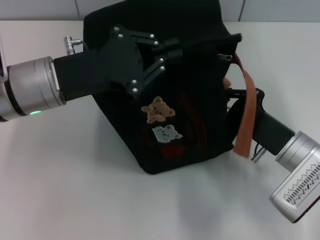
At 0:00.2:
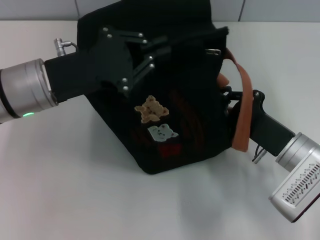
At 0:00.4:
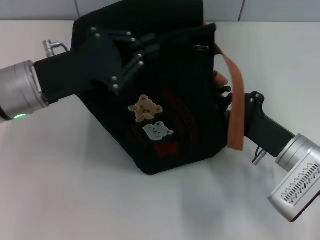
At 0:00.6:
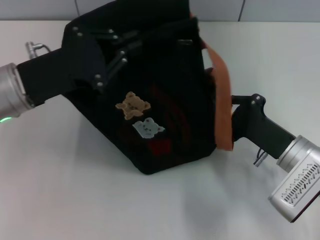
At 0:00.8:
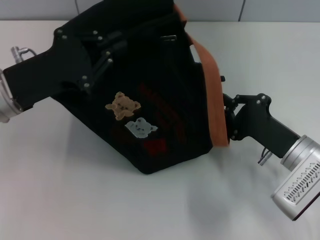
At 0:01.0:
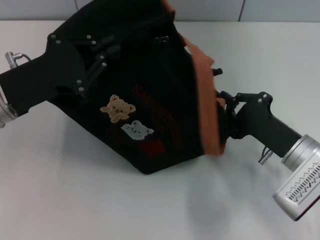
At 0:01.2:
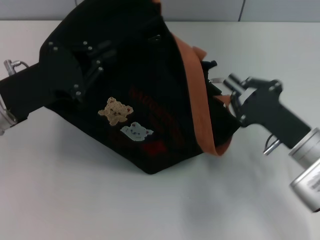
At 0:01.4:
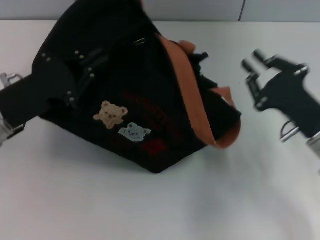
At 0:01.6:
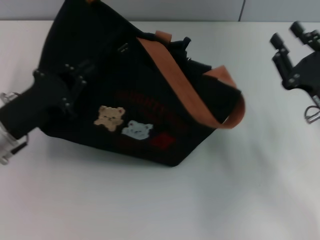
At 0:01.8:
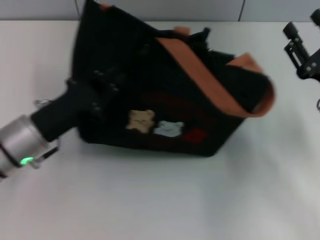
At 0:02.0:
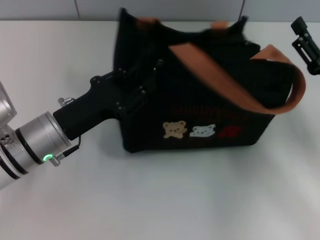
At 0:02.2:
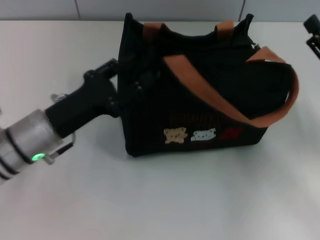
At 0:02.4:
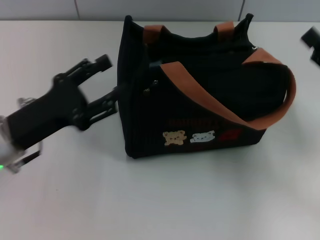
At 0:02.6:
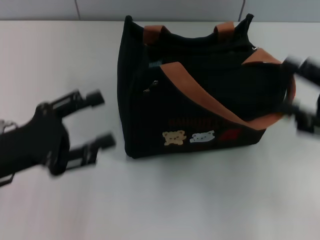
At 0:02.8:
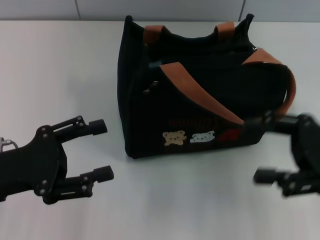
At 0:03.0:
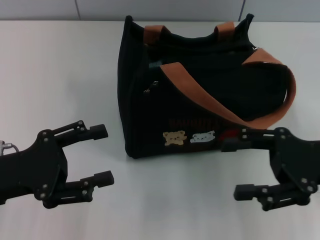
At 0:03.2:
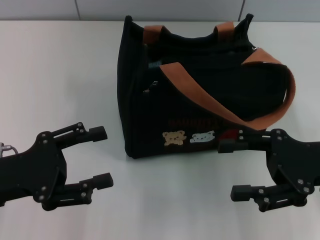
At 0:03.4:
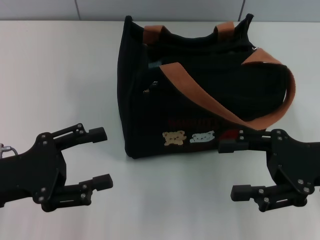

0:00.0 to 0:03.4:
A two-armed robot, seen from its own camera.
Step, 0:01.4 to 0:02.2: Grab the bag with your left hand.
0:00.0 to 0:01.6: The left gripper travels downward and to the left by some 10 cm; the right gripper heads to the right, covering roughly 5 cm, and opens.
0:01.6 to 0:03.4: The right gripper goes approximately 5 cm upward, and opens up. Meanwhile the left gripper is displaced backward by roughly 5 cm, moves about 5 cm to the right and comes back, and opens.

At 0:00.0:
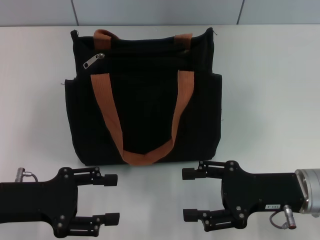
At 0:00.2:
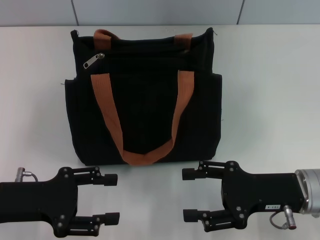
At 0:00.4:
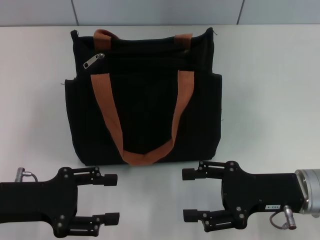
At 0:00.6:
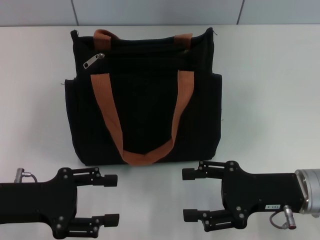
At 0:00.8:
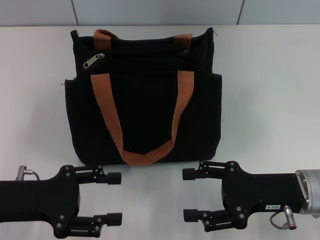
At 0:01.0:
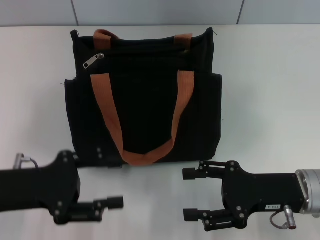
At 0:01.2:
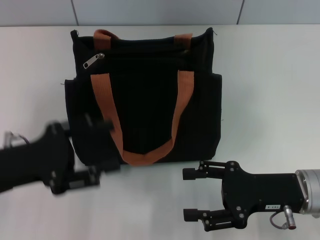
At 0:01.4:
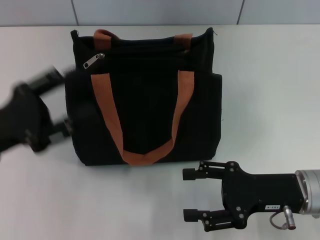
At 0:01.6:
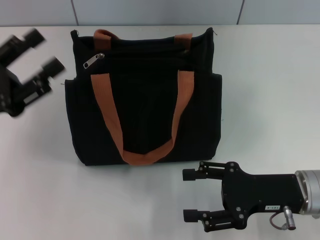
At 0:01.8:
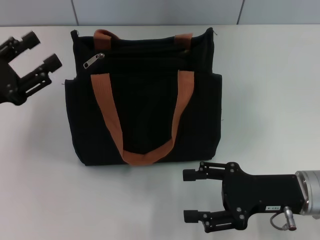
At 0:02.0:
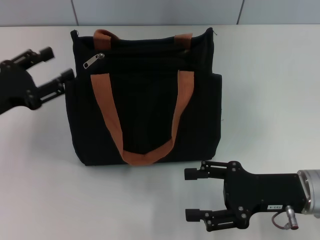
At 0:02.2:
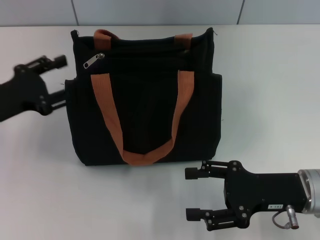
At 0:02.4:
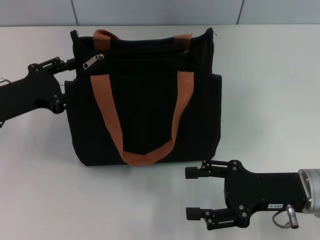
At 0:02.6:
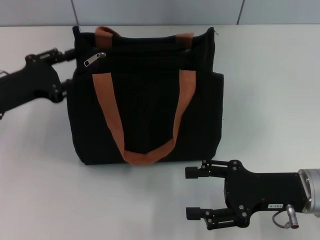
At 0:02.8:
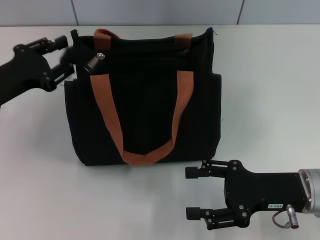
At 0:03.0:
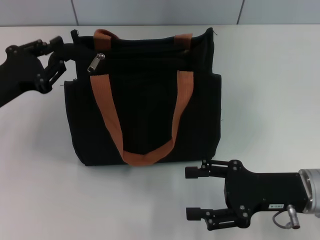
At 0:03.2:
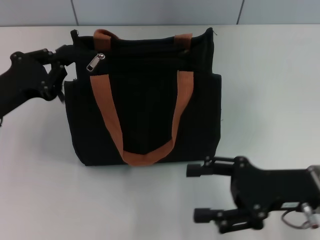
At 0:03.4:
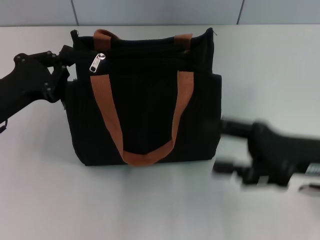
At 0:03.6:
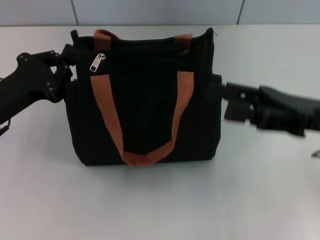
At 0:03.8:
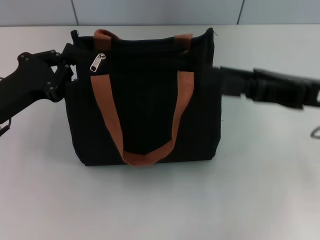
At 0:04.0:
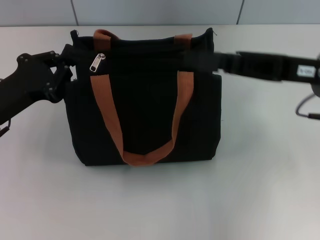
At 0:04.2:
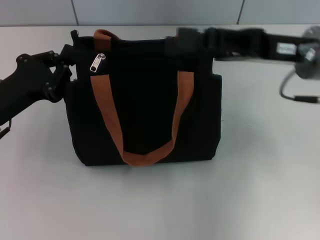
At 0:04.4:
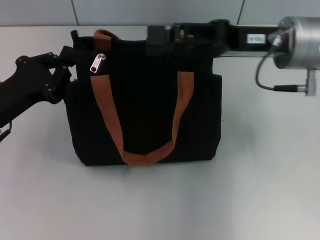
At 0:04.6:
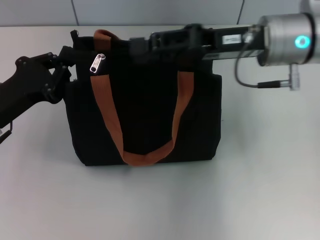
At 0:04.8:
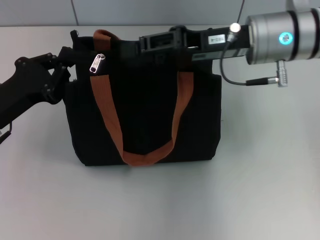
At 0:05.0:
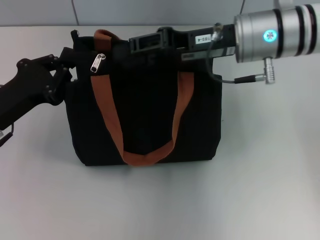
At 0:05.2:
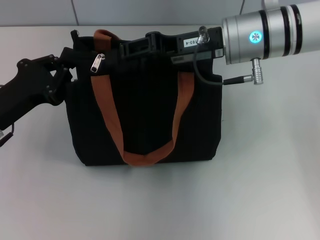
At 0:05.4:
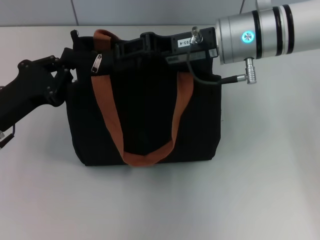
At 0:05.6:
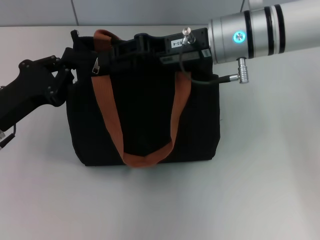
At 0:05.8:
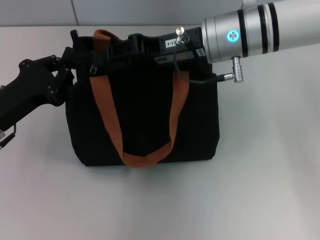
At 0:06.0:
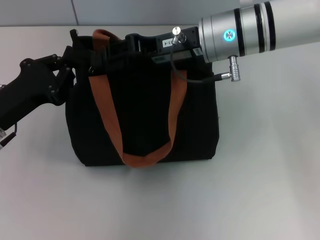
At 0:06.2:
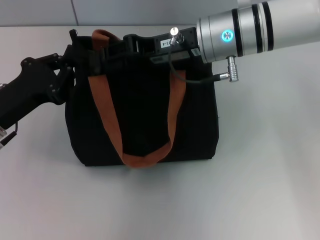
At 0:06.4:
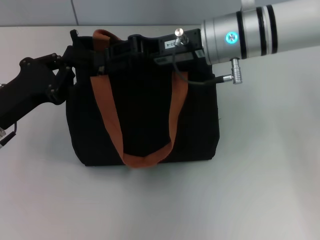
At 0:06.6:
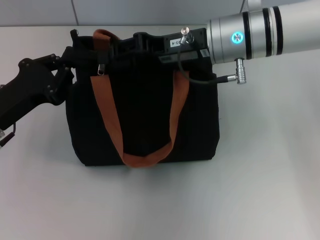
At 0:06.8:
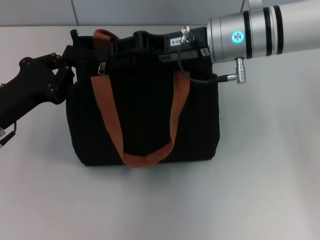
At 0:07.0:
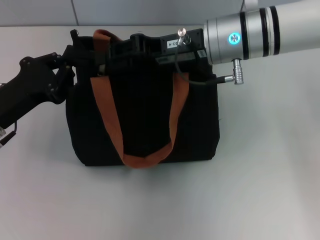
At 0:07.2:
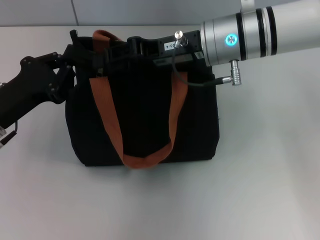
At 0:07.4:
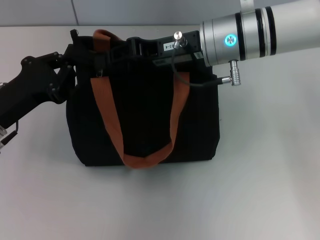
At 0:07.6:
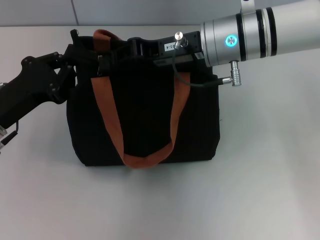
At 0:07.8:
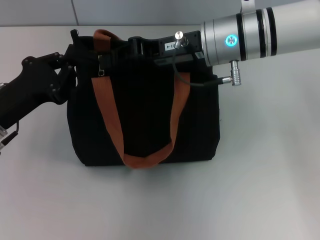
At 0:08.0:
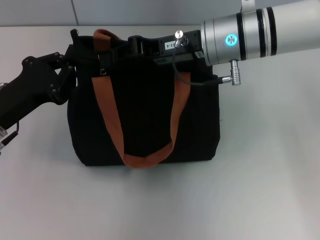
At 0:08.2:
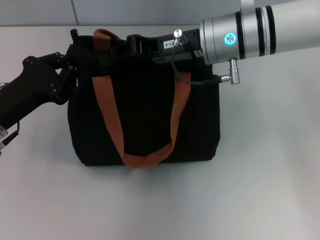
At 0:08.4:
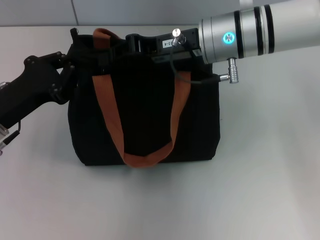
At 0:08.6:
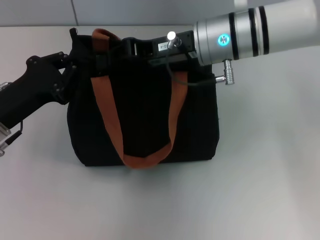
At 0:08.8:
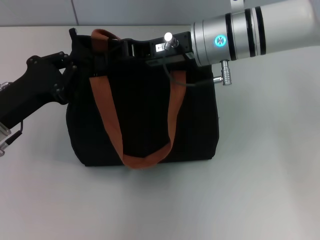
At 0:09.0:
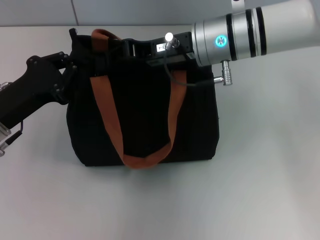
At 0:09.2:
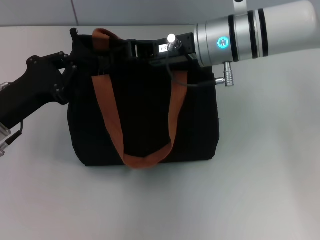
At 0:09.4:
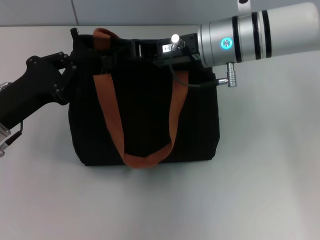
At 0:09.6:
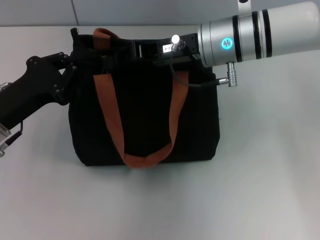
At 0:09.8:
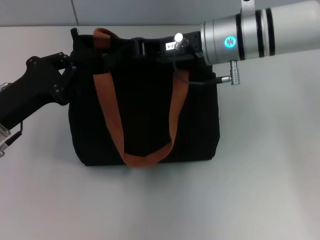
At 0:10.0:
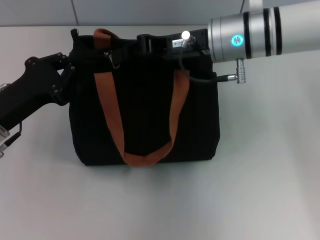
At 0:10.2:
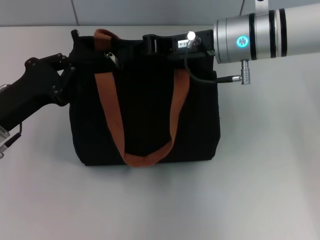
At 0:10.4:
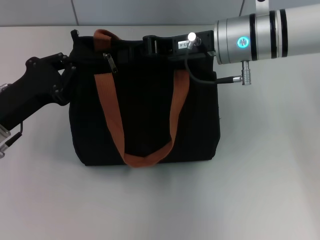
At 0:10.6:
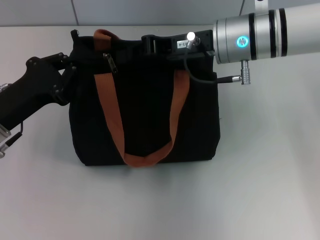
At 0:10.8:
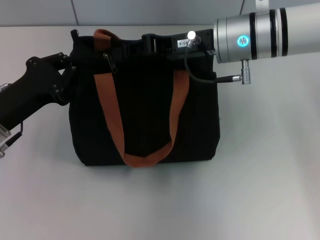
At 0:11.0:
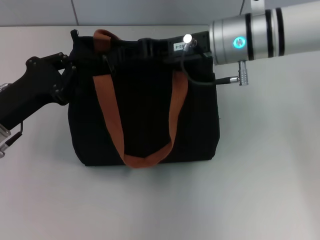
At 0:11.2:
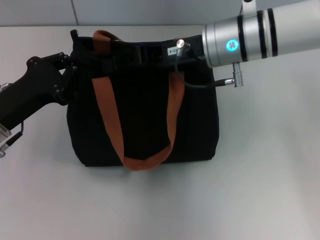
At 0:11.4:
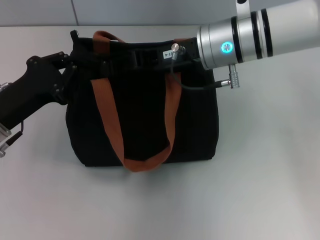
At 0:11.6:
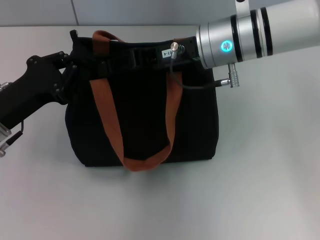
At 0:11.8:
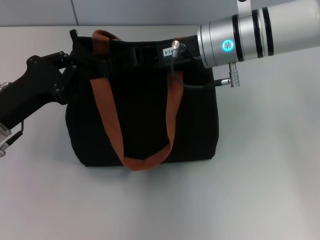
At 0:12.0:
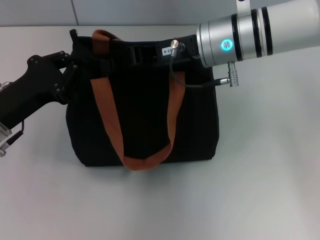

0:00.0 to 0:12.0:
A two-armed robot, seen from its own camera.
0:00.0 to 0:01.6: The left gripper shifts by some 5 cm.
0:01.6 to 0:03.0: The left gripper moves forward, some 5 cm.
0:03.0 to 0:04.4: The right gripper shifts approximately 20 cm upward and forward, while the left gripper closes its fingers.
0:04.4 to 0:06.0: The right gripper travels to the left by approximately 10 cm, and closes its fingers.
0:06.0 to 0:09.0: Both grippers stay put.
0:09.0 to 0:12.0: The grippers move only a little.

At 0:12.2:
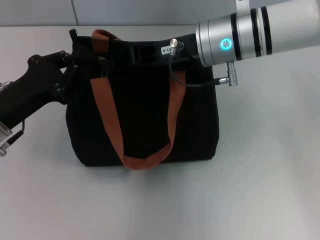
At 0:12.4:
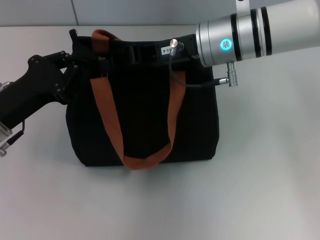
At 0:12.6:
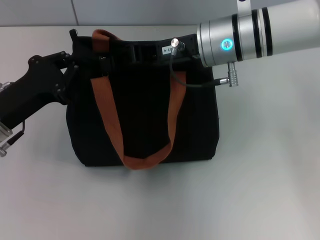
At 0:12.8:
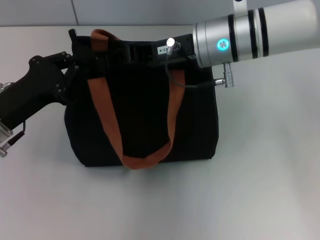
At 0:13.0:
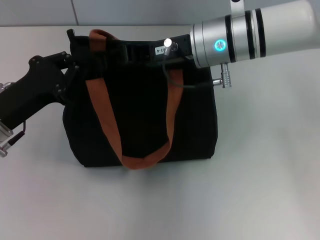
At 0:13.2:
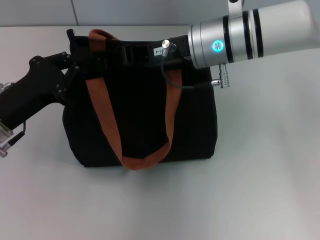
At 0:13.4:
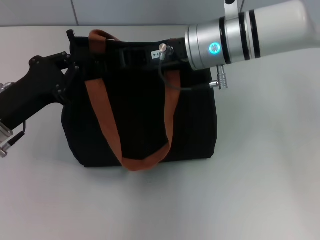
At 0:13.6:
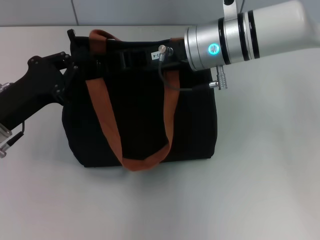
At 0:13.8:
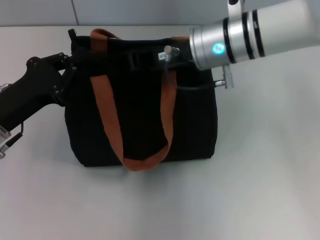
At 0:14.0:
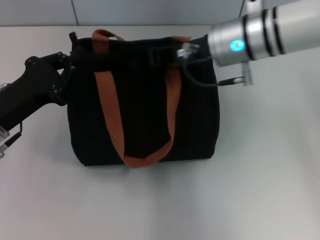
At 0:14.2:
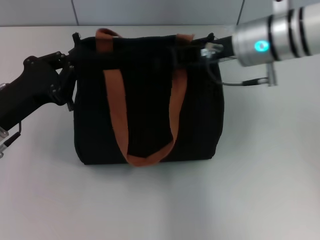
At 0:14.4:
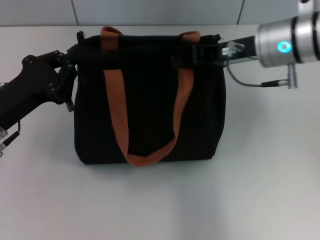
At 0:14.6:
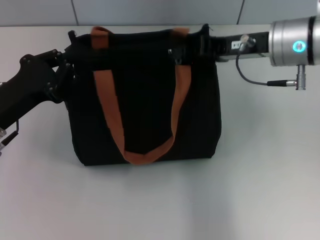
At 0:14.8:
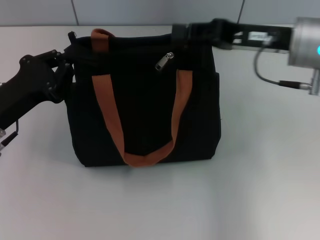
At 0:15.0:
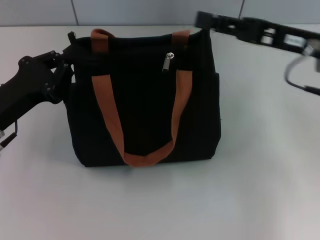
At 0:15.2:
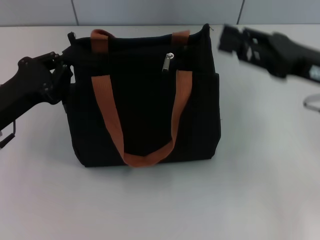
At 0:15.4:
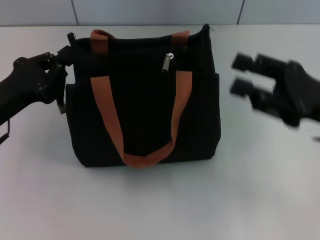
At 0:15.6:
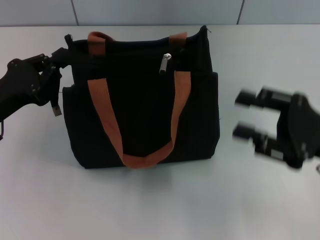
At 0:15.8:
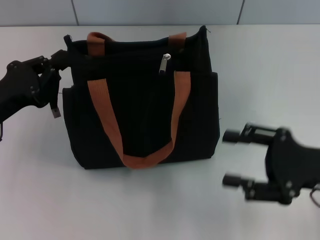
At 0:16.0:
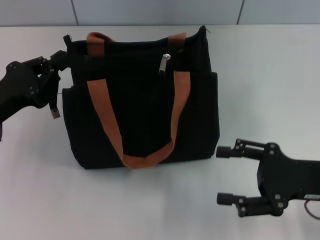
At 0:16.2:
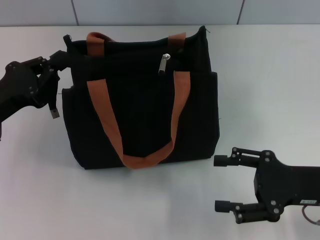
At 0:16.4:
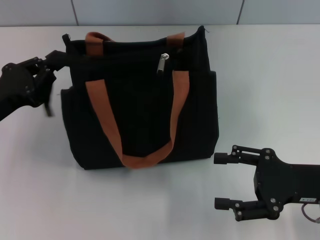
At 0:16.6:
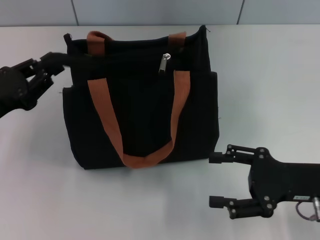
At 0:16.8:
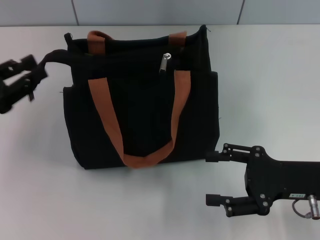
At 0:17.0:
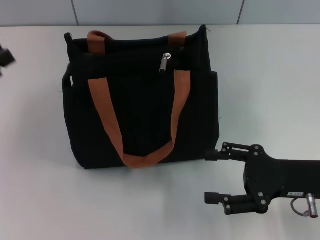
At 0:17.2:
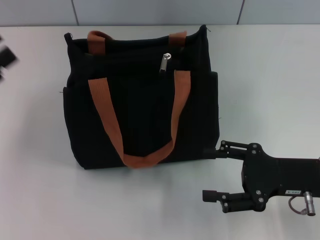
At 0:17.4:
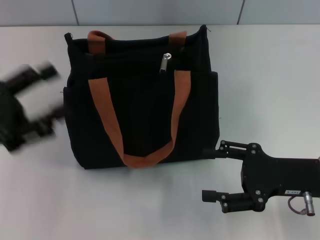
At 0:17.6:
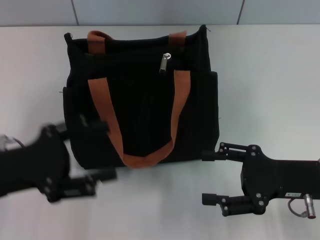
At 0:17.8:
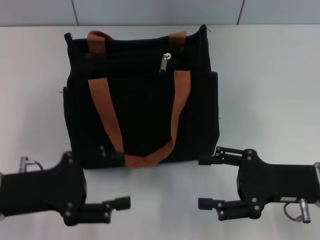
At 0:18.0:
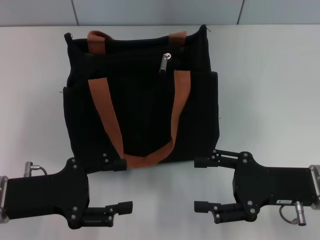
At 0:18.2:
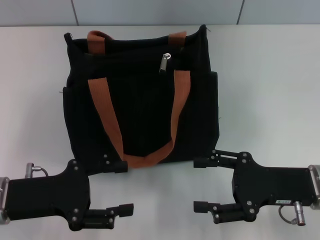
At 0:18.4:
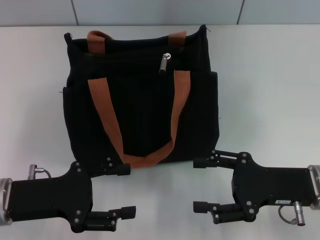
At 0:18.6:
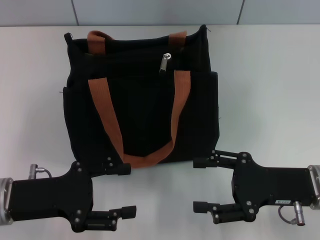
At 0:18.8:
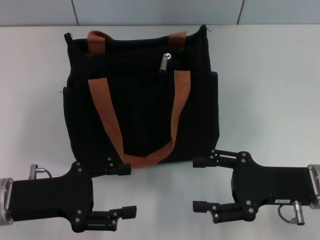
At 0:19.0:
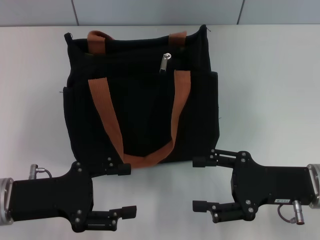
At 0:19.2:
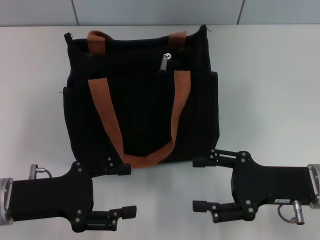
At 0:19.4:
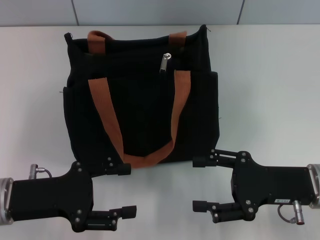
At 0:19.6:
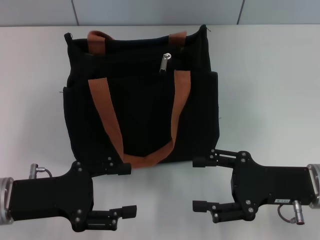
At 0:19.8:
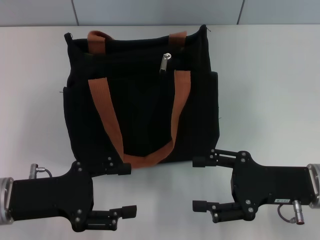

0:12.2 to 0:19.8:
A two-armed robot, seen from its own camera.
Step, 0:12.2 to 0:14.8: Pull up the zipper with your right hand.
Step, 0:15.0 to 0:16.8: Grab the zipper with your left hand.
0:12.2 to 0:13.8: The grippers make only small movements.
0:13.8 to 0:15.2: The right gripper heads to the right and backward, covering some 20 cm, and opens.
0:15.2 to 0:16.8: The right gripper shifts some 10 cm downward and backward, and opens.
0:16.8 to 0:18.2: The left gripper goes roughly 5 cm to the right, and opens.
0:18.2 to 0:19.8: Both grippers stay put.
